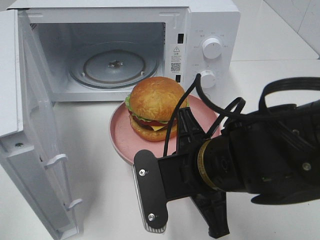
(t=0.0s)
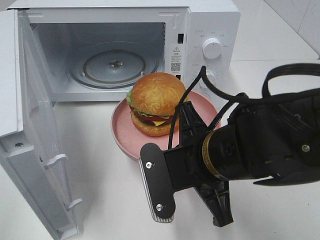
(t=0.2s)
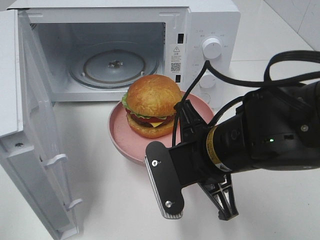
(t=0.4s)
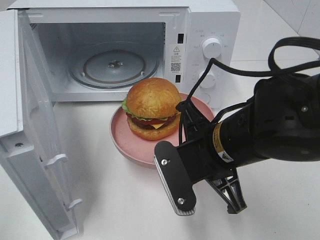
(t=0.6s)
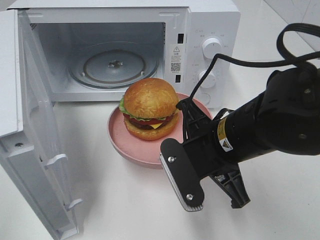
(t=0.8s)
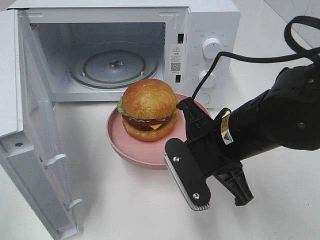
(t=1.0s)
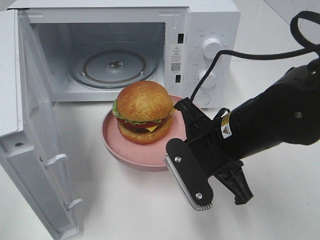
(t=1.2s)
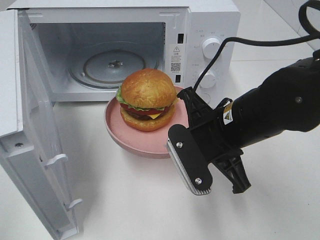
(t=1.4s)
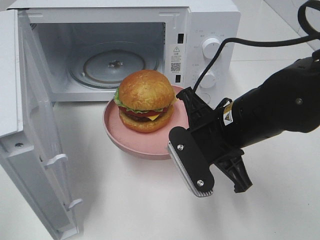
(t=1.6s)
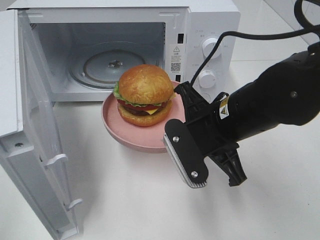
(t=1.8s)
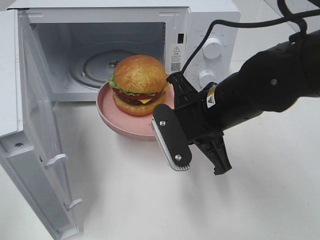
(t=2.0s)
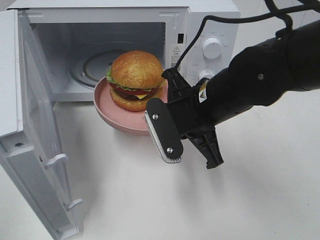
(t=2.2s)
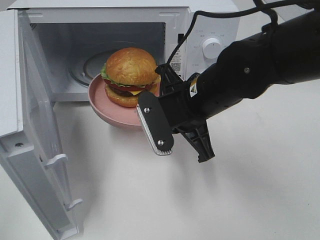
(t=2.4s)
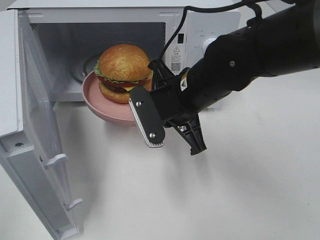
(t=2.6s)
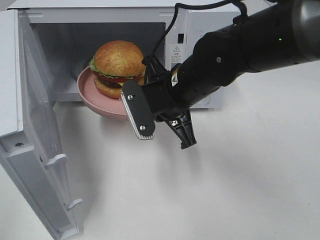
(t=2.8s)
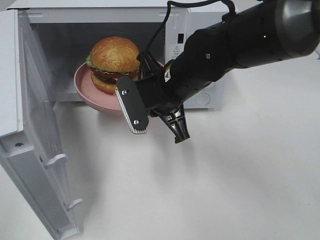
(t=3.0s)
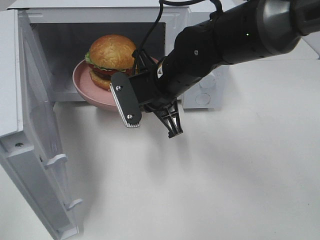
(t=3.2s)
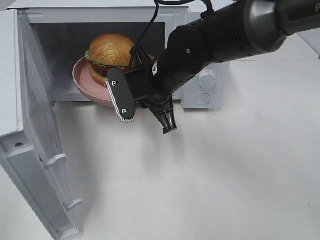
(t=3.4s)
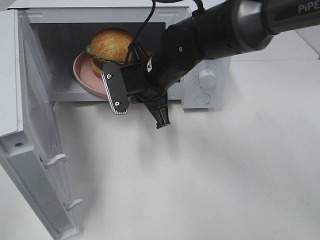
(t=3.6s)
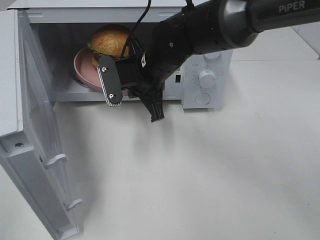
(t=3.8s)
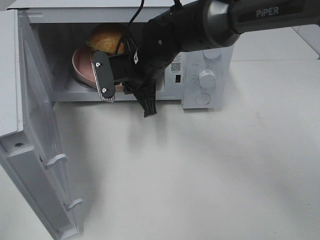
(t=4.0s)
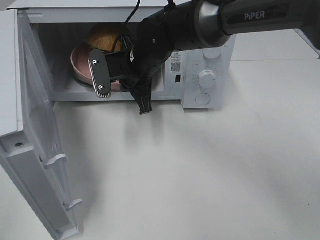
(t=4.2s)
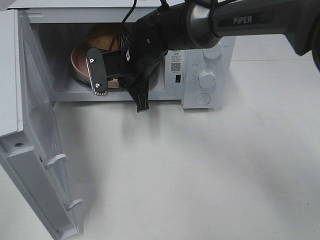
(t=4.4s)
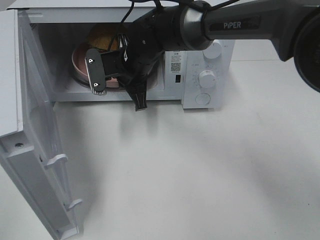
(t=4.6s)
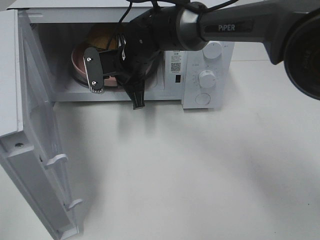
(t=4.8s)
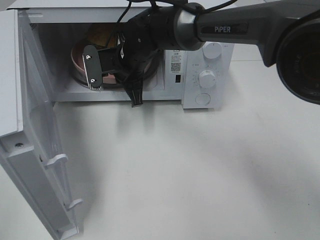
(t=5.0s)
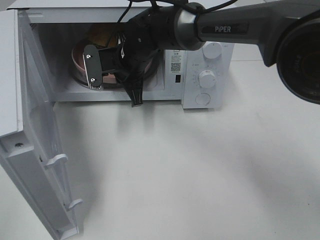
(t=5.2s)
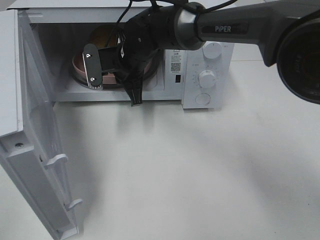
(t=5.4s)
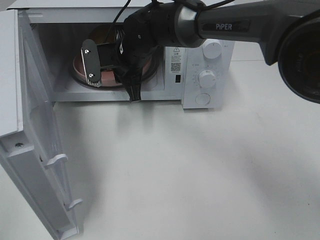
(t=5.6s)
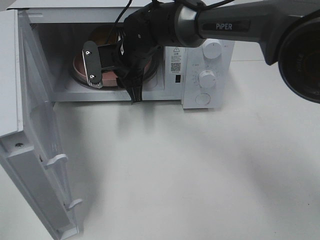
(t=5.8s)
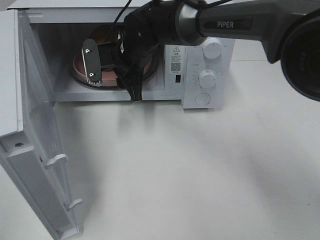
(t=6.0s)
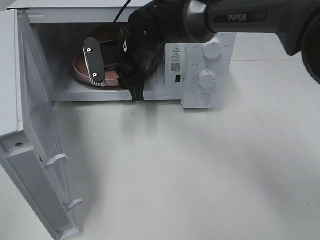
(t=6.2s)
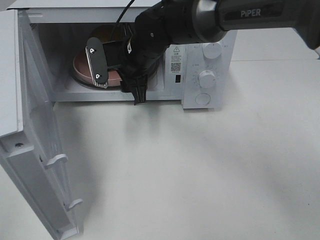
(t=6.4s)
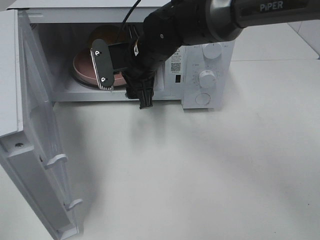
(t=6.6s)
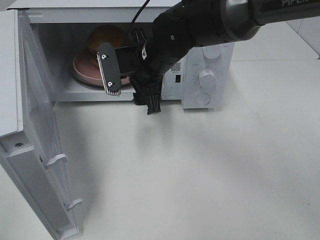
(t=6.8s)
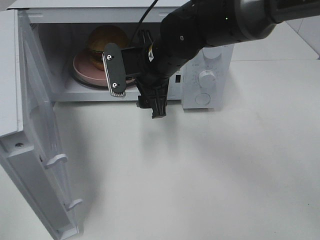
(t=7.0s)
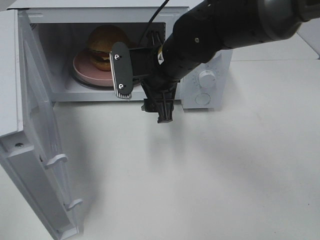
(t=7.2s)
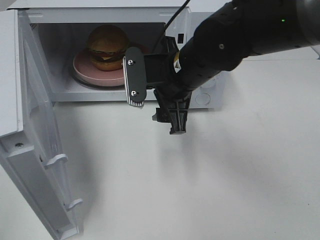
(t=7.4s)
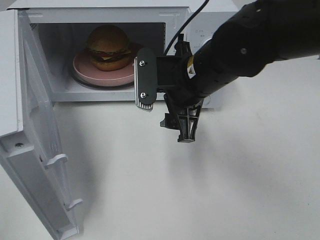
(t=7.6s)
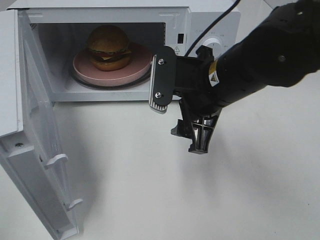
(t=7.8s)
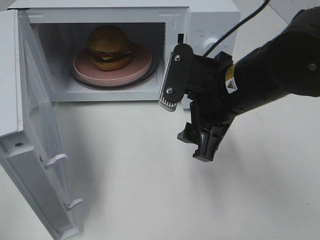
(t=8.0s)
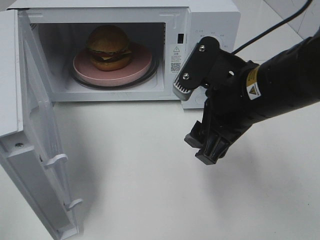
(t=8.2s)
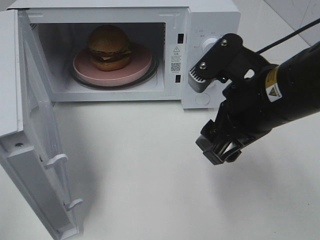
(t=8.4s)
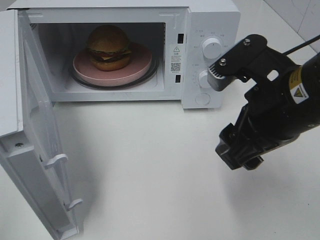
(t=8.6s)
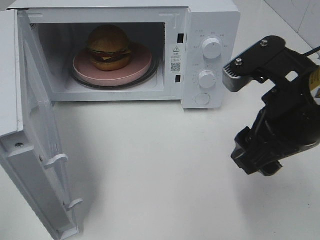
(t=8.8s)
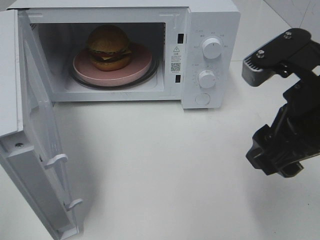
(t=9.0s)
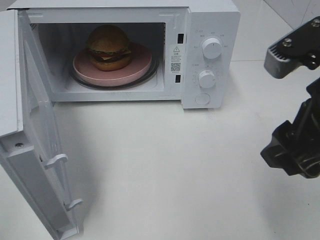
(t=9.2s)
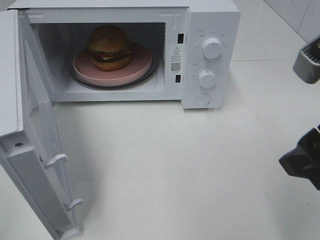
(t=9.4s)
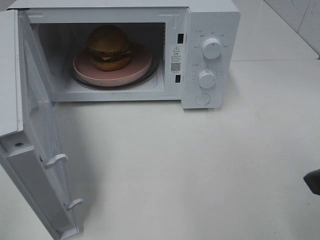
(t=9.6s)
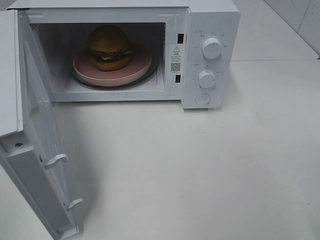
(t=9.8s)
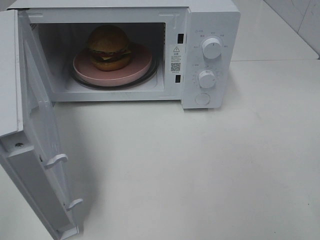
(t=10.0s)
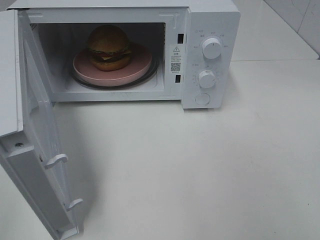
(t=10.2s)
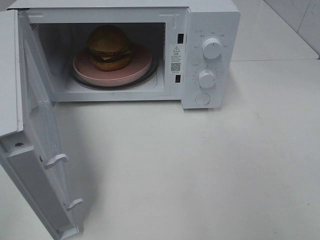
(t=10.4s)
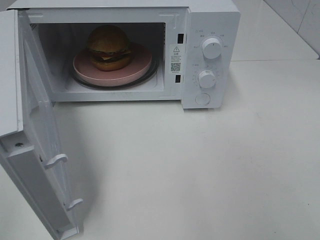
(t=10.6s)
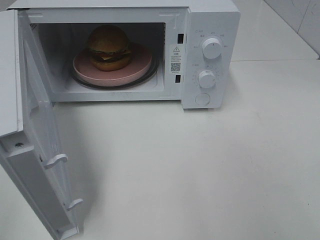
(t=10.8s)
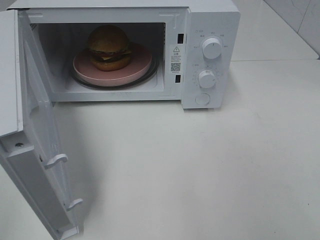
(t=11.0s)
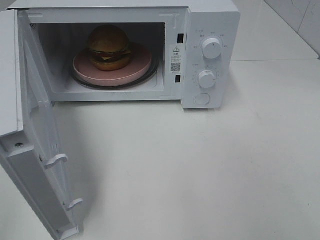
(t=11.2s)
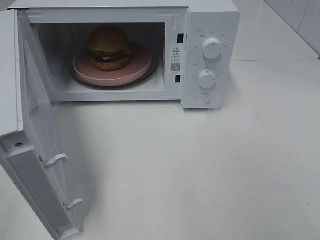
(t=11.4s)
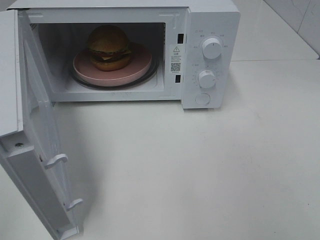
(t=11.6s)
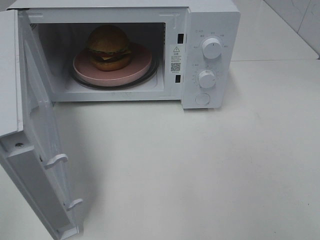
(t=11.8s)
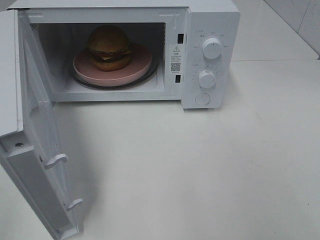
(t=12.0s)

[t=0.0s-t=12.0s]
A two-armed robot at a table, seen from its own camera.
Task of the whole recording: Heat the burger.
Step, t=0.0s to t=6.0s: Right hand: place the plate in the microwave.
t=0.0s to t=1.6s: The right gripper travels forward by approximately 5 cm.
t=1.6s to t=3.0s: The right gripper heads forward and to the left, covering approximately 10 cm.
t=3.0s to t=4.4s: The right gripper goes about 10 cm forward and to the left.
t=4.4s to t=6.0s: The right gripper opens.
t=6.0s to t=7.6s: The right gripper travels backward and to the right by some 15 cm.
t=7.6s to t=9.0s: The right gripper travels backward, to the right and upward by approximately 15 cm.
t=9.0s to t=10.4s: The right gripper shifts some 15 cm to the right and backward.

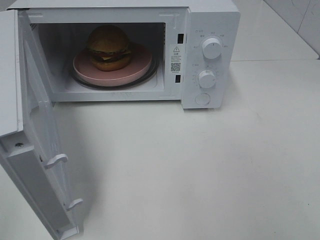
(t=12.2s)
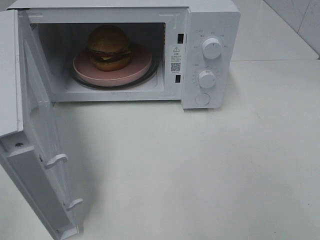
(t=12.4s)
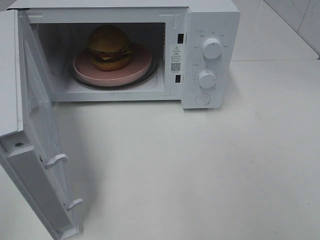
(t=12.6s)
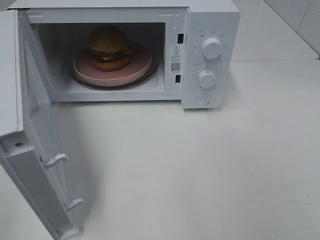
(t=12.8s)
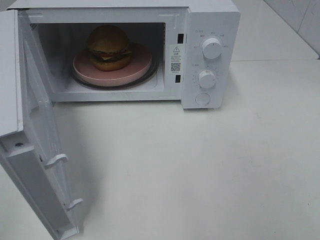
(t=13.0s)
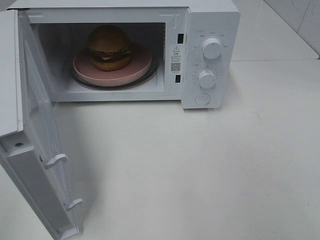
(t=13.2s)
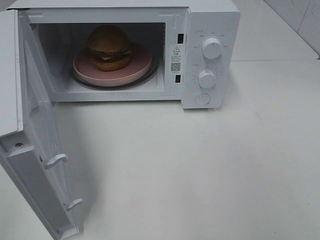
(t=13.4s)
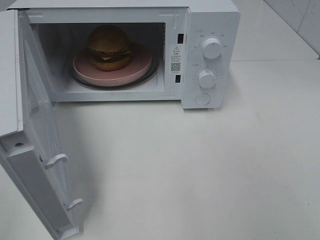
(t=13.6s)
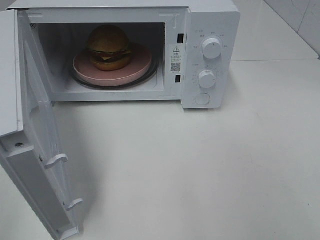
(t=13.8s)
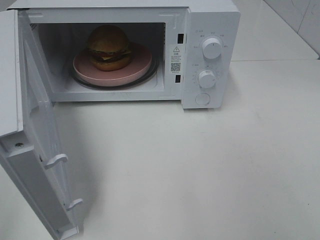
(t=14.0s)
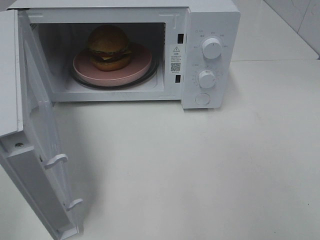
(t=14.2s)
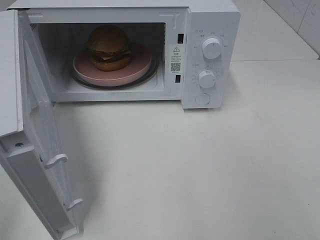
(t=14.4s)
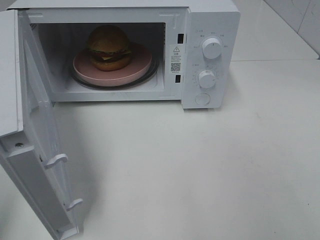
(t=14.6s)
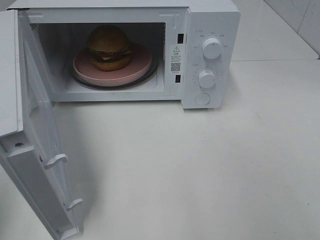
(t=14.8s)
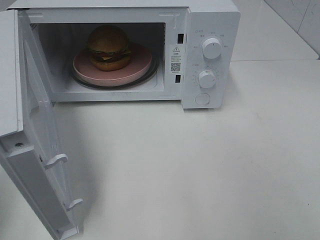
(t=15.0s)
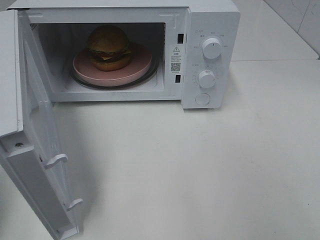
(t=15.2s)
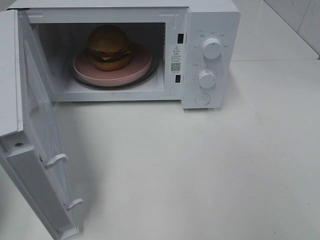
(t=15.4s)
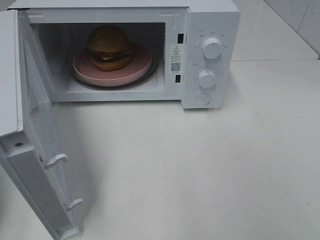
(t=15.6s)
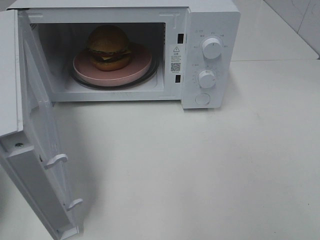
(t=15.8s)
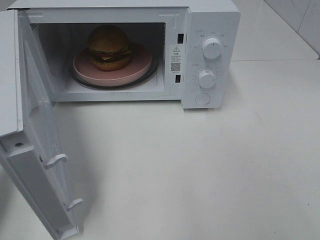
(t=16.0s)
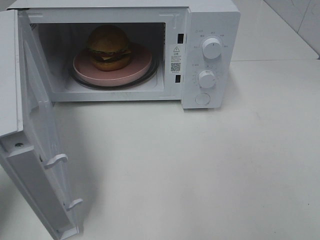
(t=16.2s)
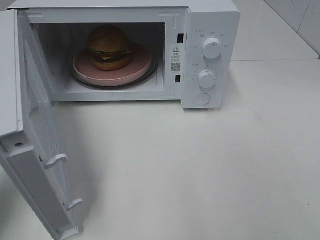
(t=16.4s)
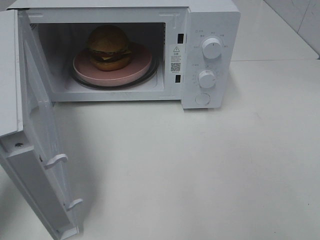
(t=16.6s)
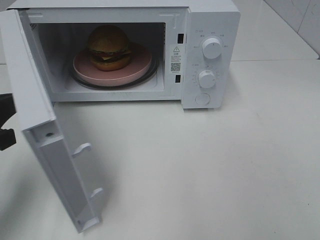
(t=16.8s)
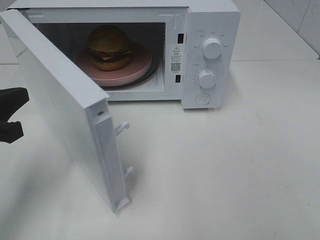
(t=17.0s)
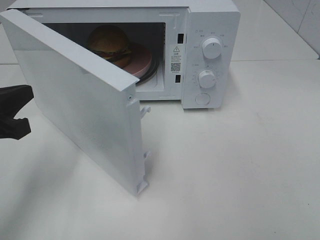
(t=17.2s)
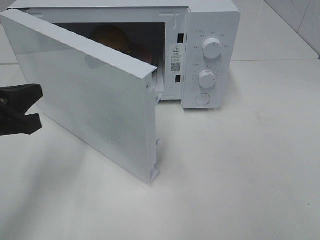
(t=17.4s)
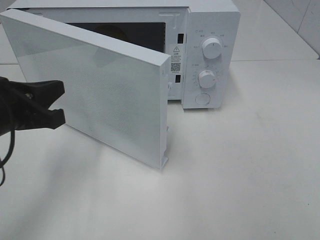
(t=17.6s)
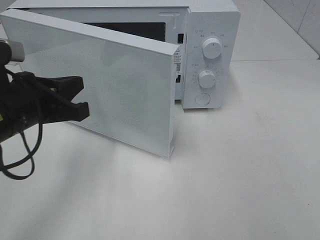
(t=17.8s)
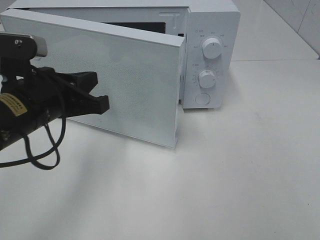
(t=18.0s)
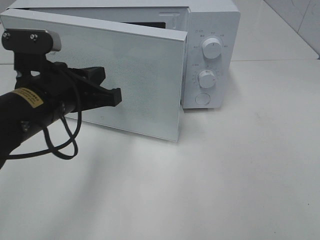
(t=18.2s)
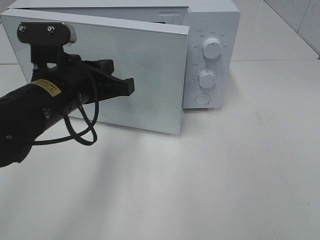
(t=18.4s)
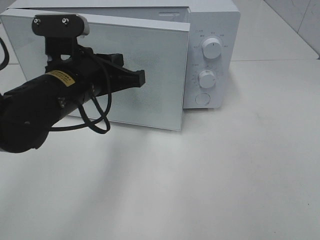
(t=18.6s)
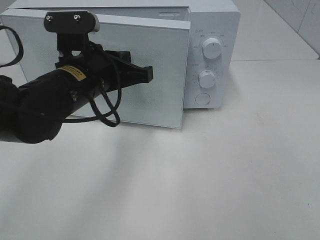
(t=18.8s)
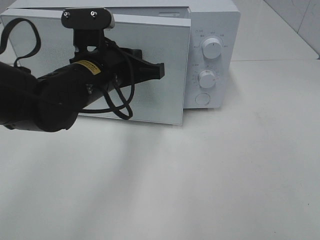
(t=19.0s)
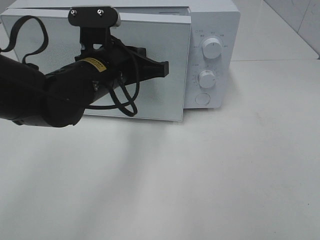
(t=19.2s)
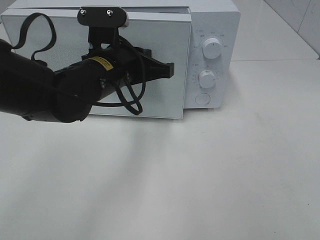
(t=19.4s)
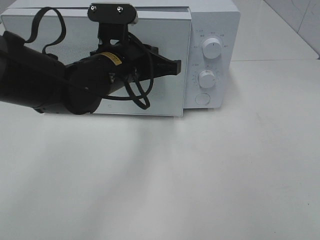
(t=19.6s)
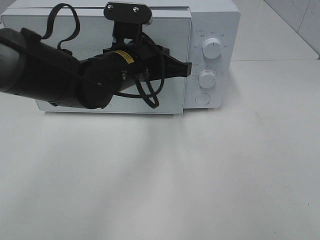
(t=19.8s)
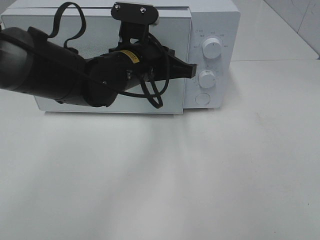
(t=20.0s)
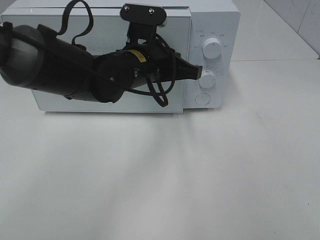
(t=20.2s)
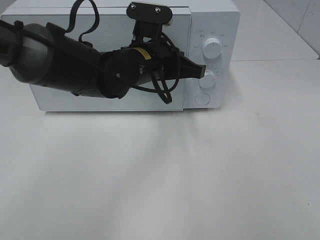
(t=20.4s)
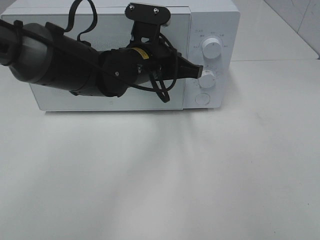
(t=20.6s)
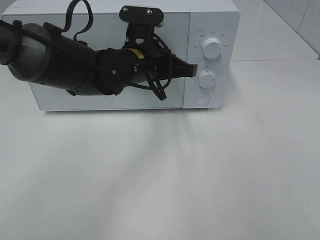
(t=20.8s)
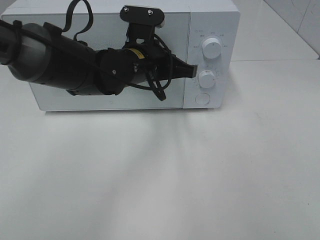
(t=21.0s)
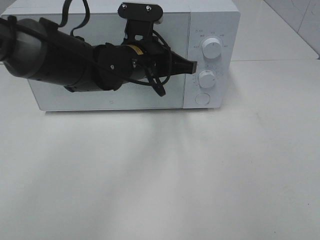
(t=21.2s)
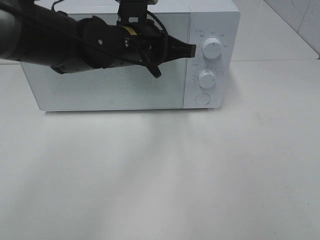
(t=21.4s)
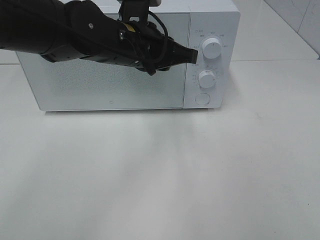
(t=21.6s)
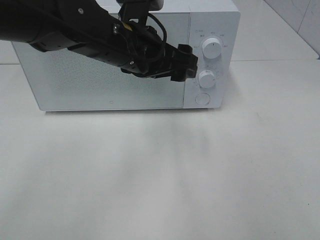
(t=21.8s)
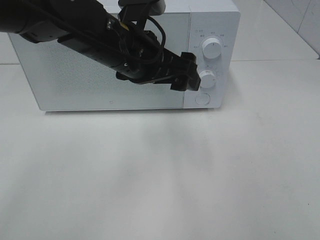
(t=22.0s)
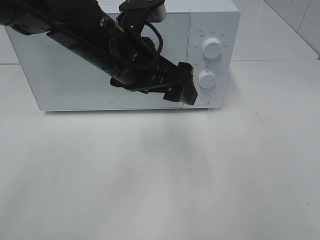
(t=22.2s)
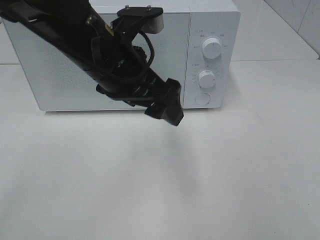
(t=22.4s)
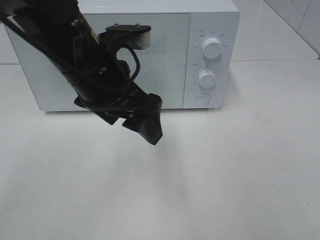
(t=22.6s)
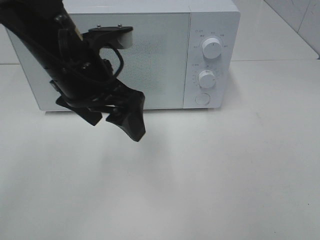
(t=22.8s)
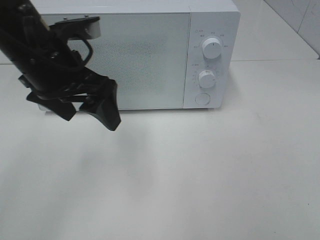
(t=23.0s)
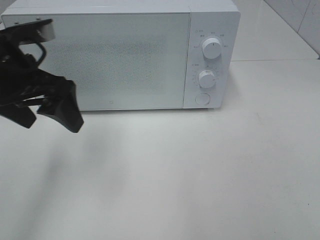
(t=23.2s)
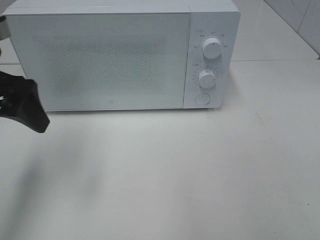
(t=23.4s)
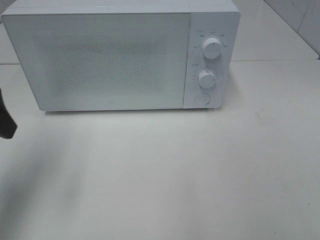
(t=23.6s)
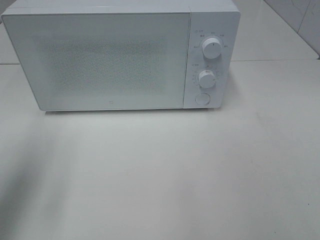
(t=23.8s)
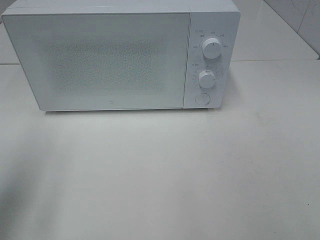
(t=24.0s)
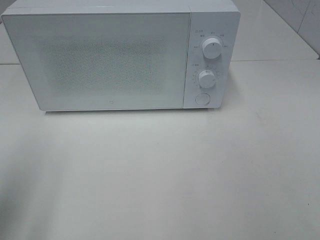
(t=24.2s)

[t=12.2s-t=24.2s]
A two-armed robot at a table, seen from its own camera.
Task of the whole recording: Heat the burger.
Step, t=12.2s to t=21.4s: Left hand: close the microwave door.
t=12.2s to t=13.8s: Neither gripper changes place.
t=15.2s to t=16.6s: The left gripper moves downward and forward, some 10 cm.
t=16.6s to t=18.2s: The left gripper travels to the right by about 15 cm.
t=18.2s to t=19.8s: The left gripper goes roughly 15 cm to the right and forward.
t=19.8s to t=21.2s: The grippers move only a little.
t=21.2s to t=22.6s: The left gripper travels backward and upward by approximately 10 cm, and opens up.
t=22.6s to t=24.2s: The left gripper heads to the left and backward, covering some 25 cm.
